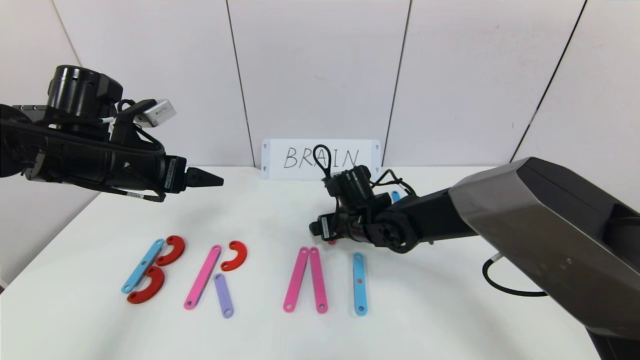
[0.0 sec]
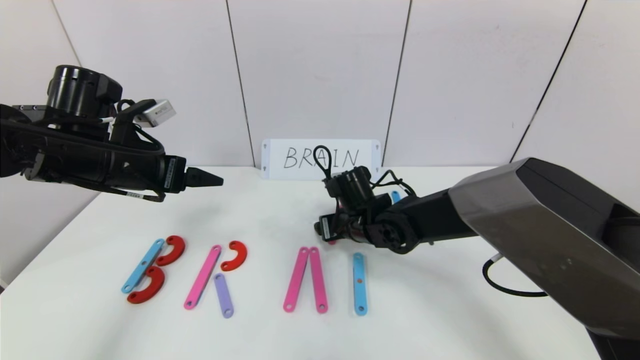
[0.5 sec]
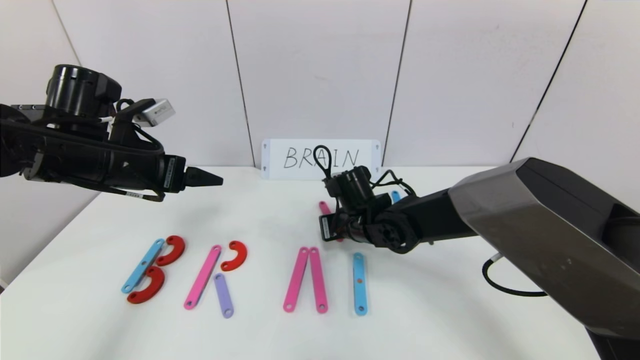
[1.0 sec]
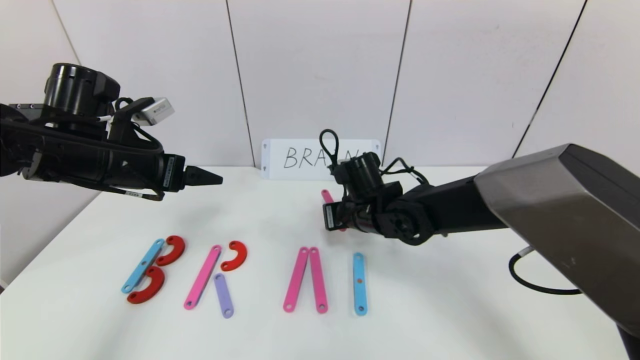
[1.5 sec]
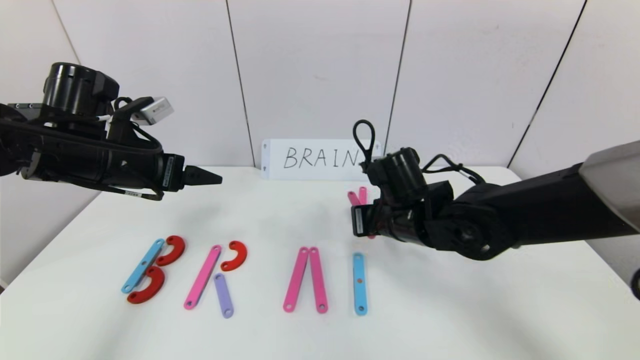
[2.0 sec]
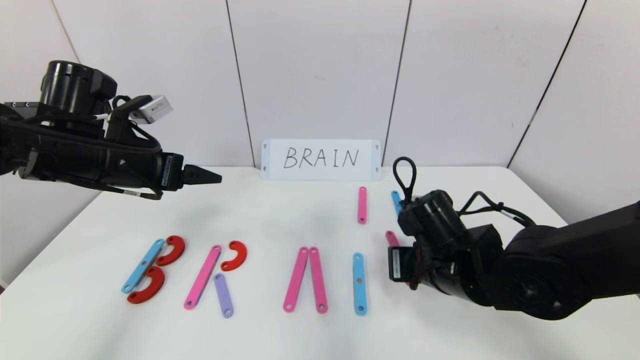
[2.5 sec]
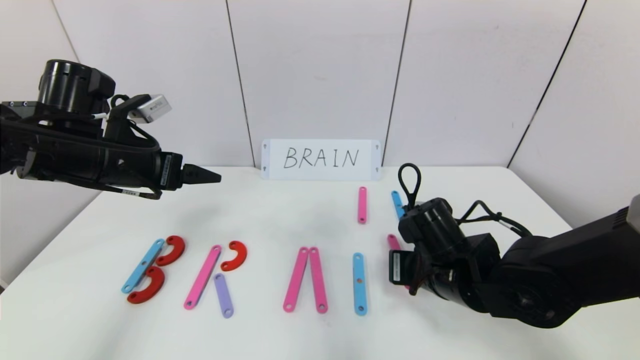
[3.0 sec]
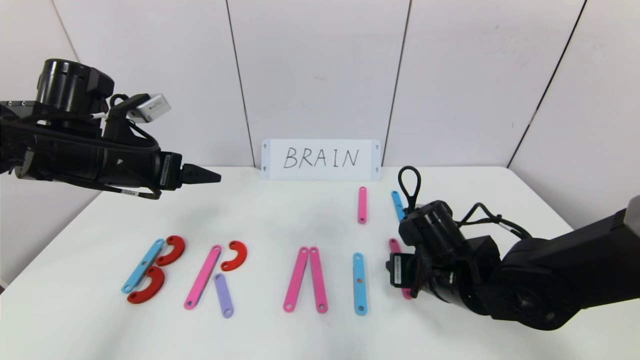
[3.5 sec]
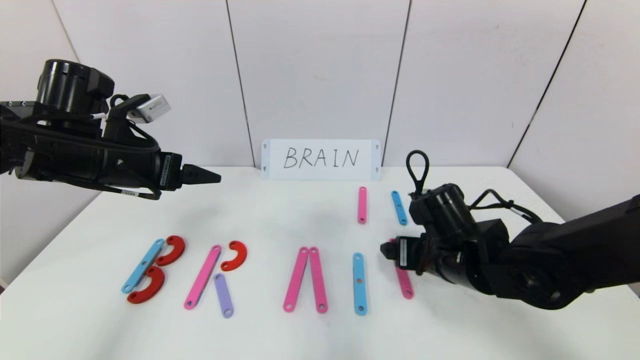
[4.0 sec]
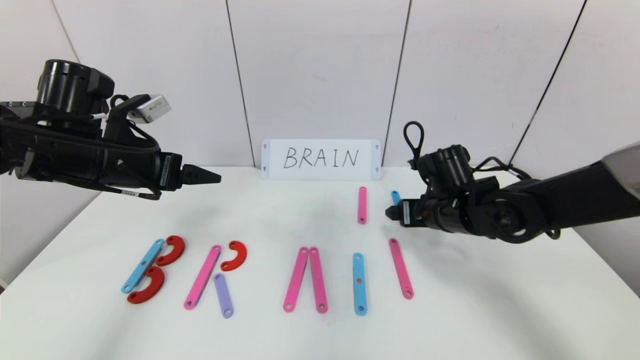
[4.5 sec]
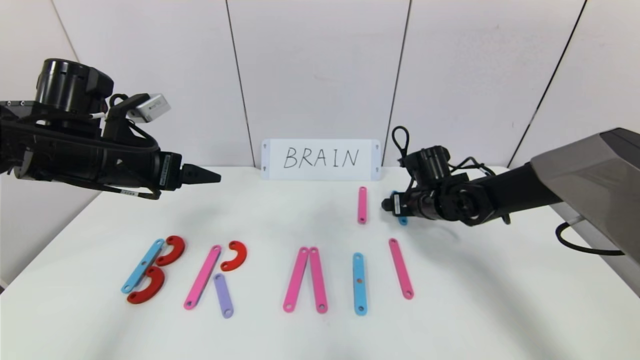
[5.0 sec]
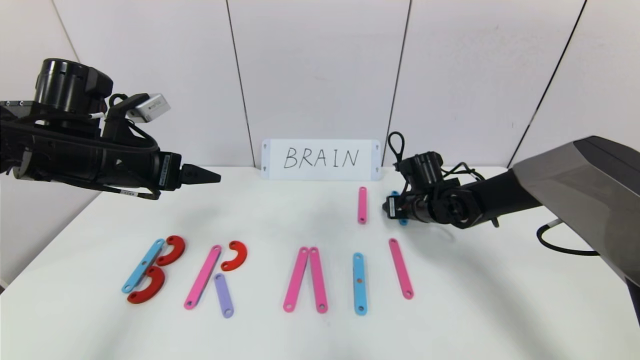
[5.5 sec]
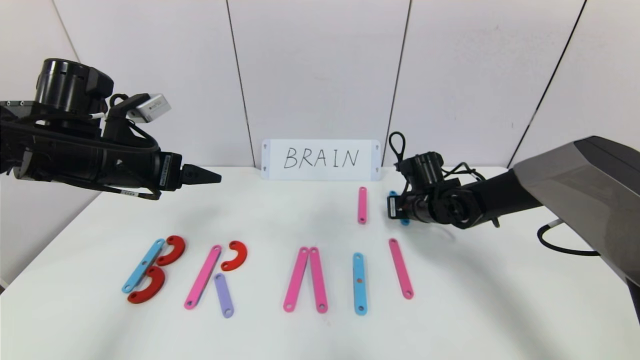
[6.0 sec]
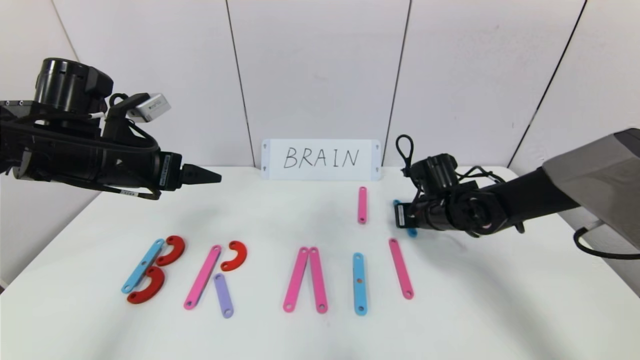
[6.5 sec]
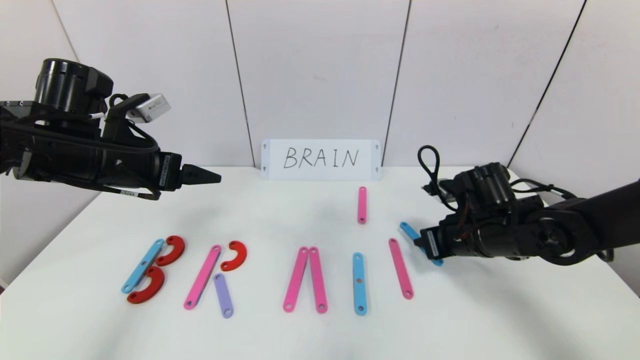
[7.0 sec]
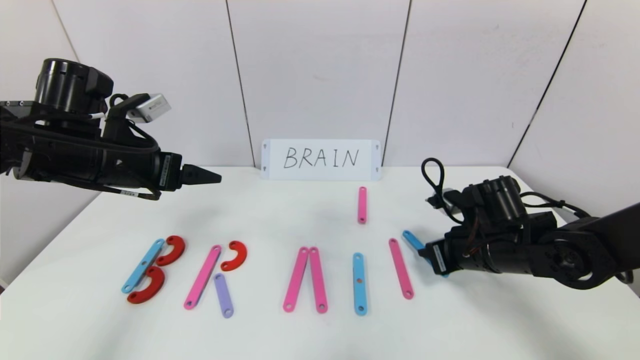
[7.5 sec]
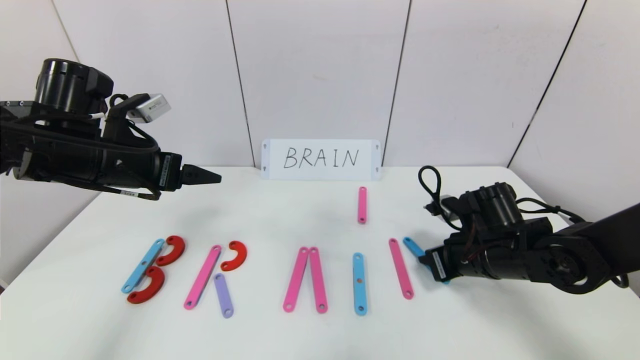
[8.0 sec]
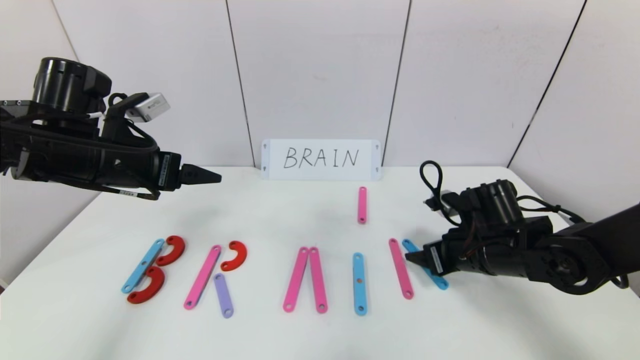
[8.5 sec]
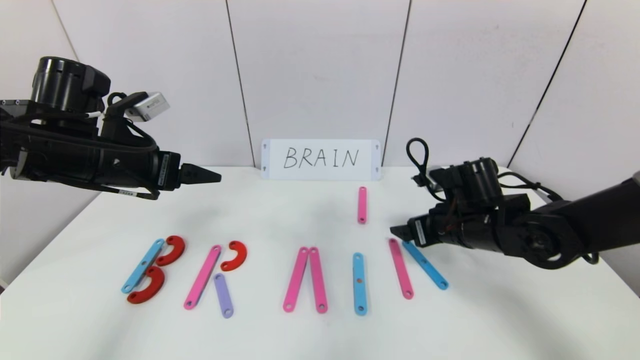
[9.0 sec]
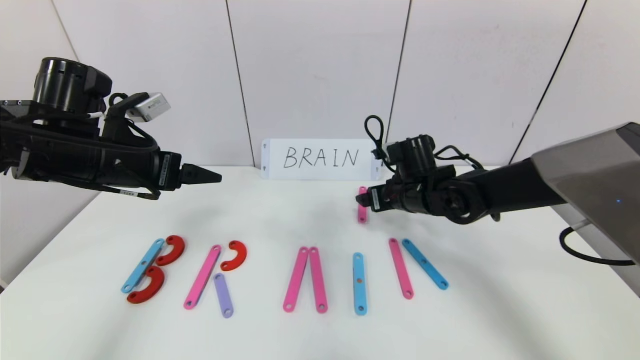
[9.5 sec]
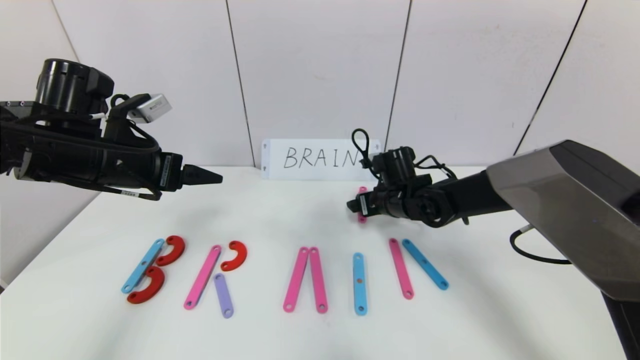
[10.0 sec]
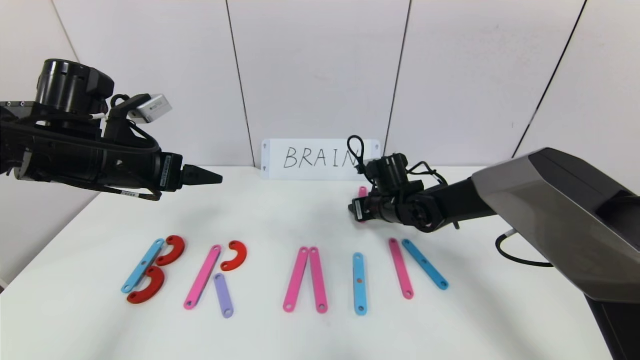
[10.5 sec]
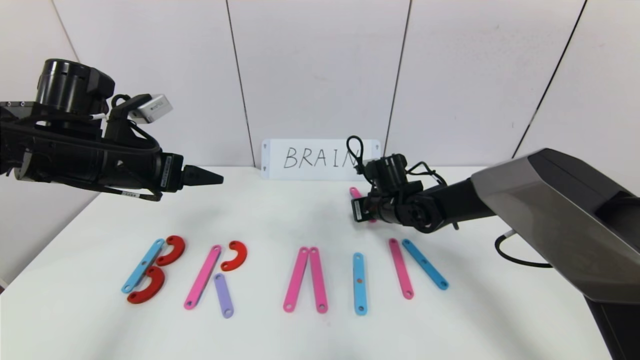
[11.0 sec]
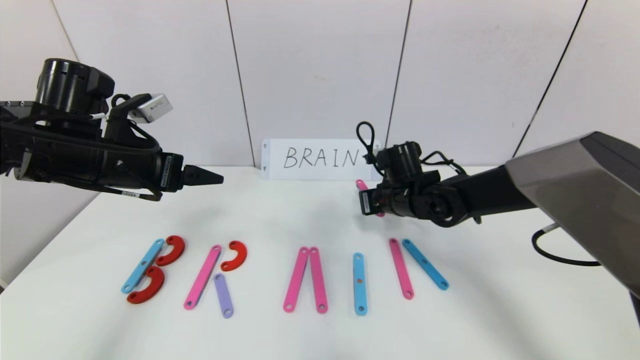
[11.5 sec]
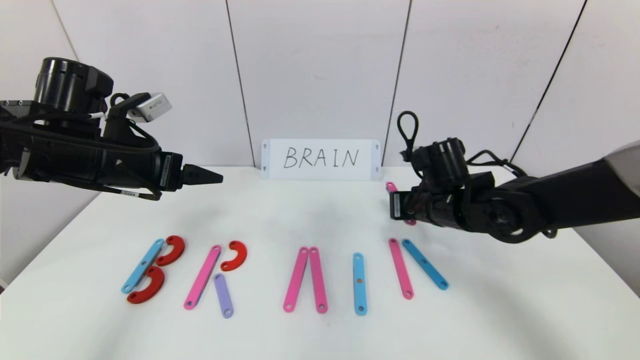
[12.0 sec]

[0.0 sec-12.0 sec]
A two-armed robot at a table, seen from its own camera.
Task of the whole recording: rearrange the word baai as brain.
0.0 sec to 2.0 sec: The right gripper shifts roughly 10 cm upward, backward and to the right, and closes.
2.0 sec to 4.0 sec: The right gripper moves to the right, roughly 5 cm, and opens.
4.0 sec to 6.0 sec: The right gripper travels forward by roughly 15 cm, and closes up.
6.0 sec to 8.0 sec: The right gripper is displaced backward by approximately 15 cm.
8.0 sec to 10.0 sec: The right gripper travels forward and to the left by about 15 cm, and opens.
10.0 sec to 12.0 sec: The right gripper travels backward by approximately 5 cm, and closes.

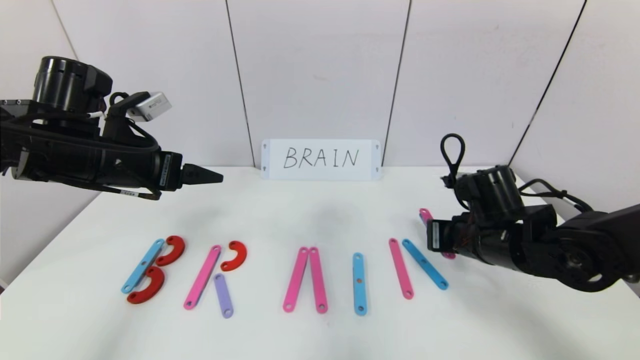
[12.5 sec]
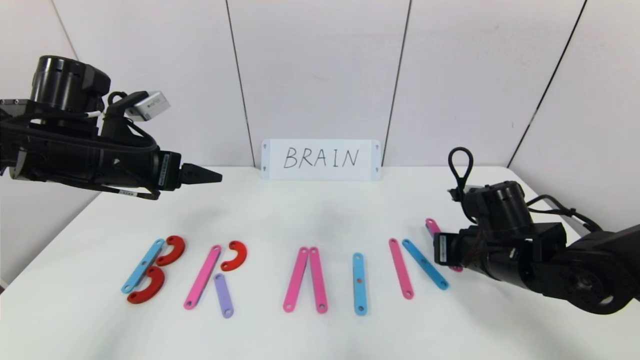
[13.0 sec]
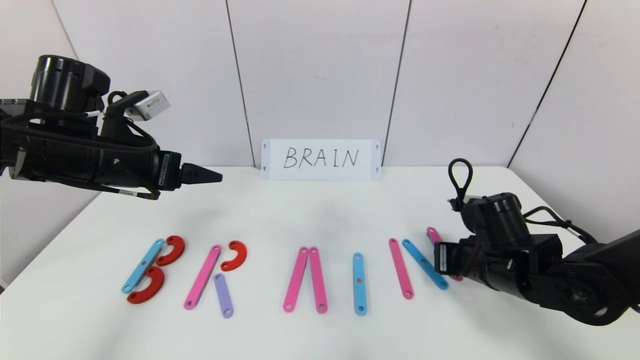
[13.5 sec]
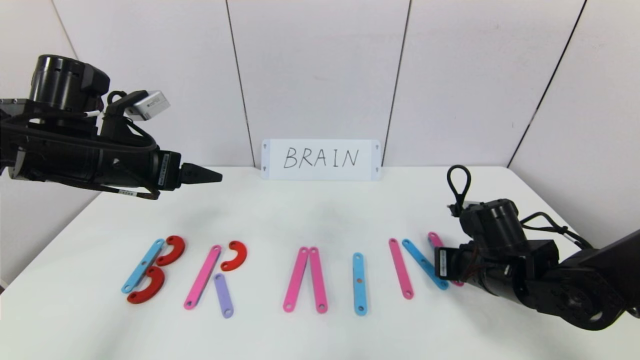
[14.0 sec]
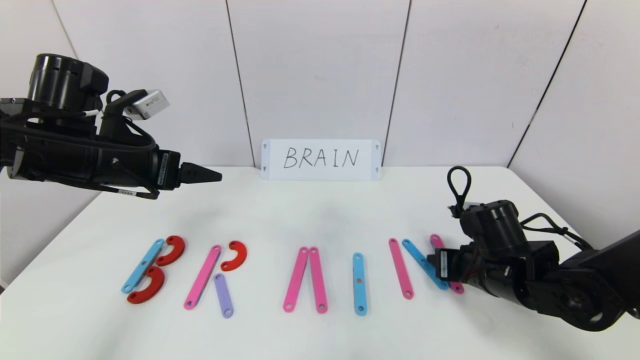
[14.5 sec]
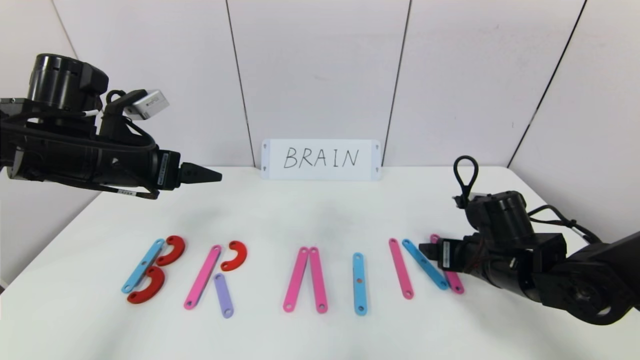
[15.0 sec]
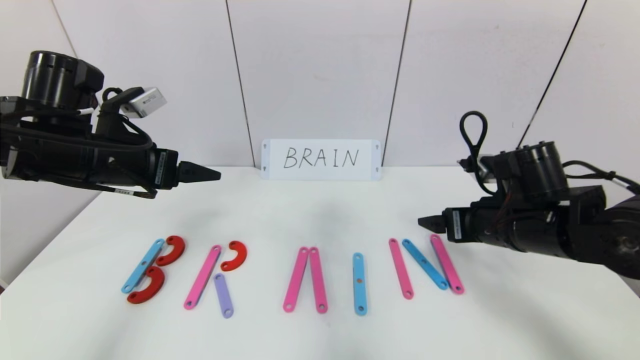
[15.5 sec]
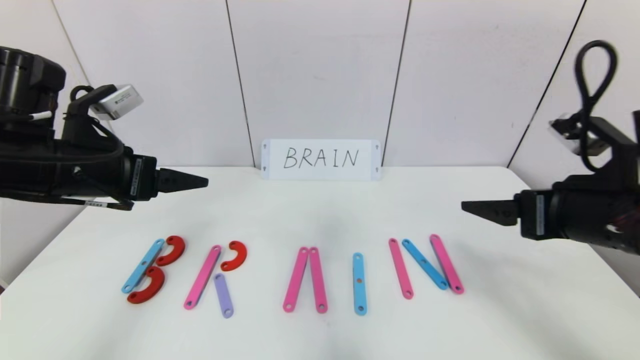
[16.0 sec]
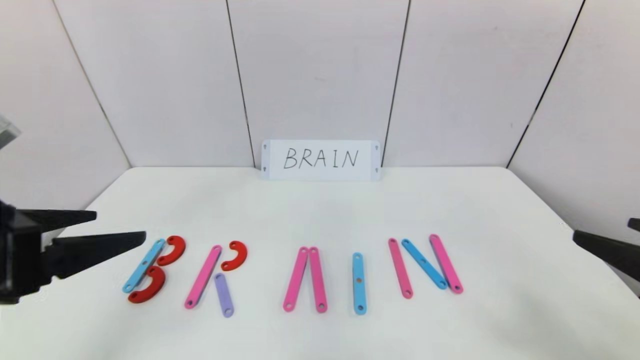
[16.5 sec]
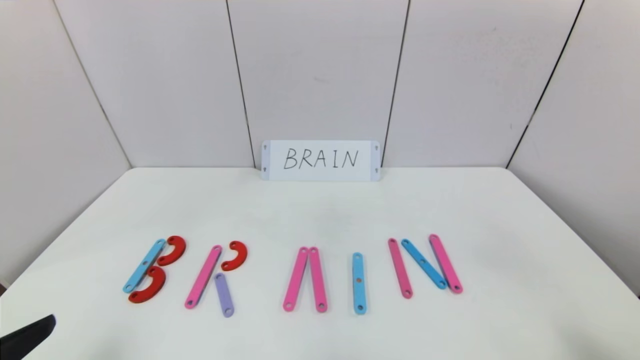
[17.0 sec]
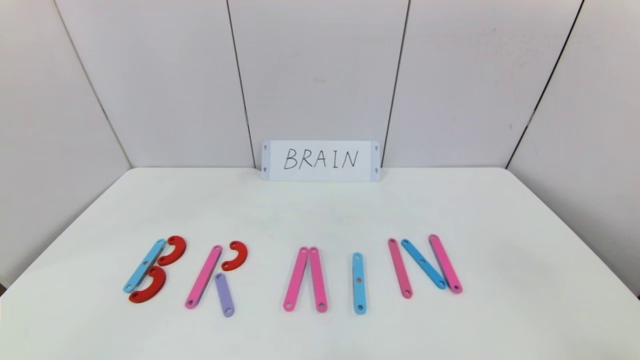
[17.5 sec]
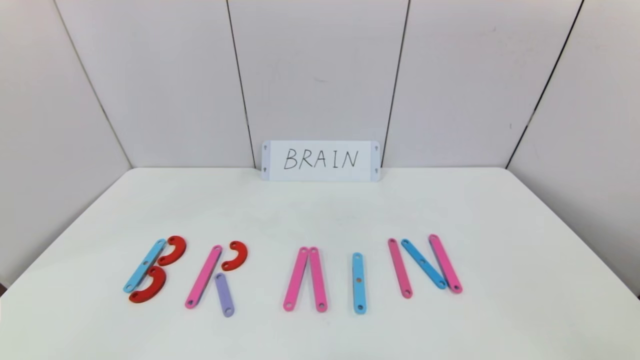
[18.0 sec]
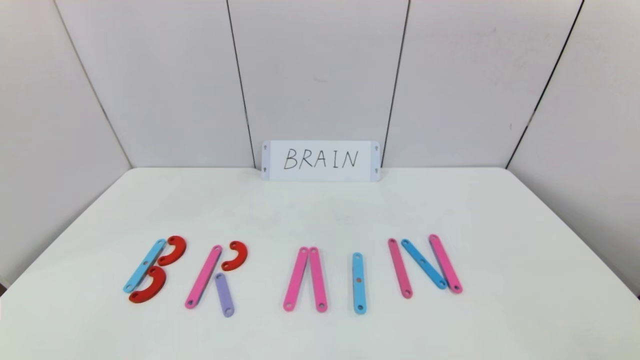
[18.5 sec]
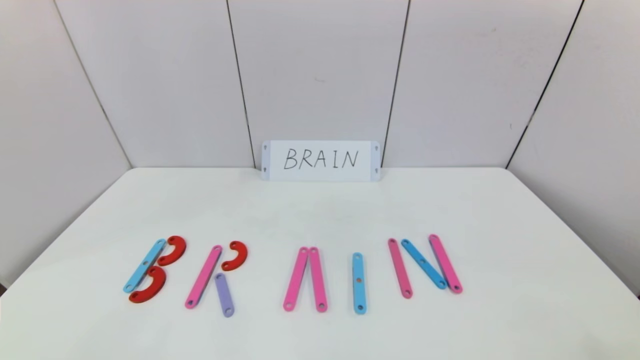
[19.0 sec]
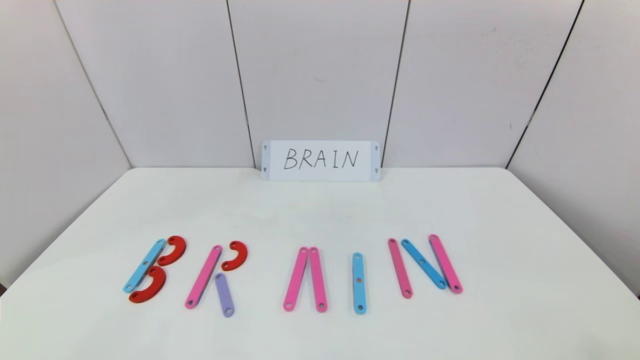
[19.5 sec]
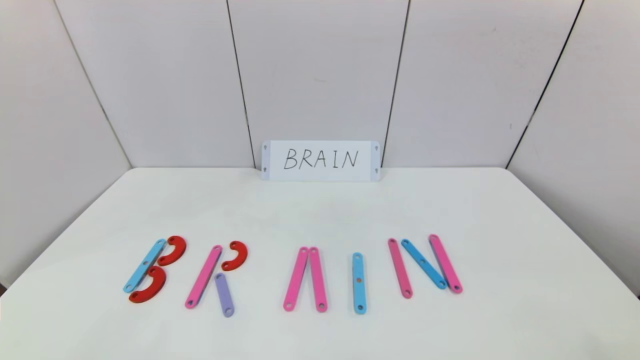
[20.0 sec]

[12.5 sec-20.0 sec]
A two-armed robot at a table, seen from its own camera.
Task of the whole recording: rearrange the word baai as brain.
12.5 sec to 14.5 sec: The right gripper opens its fingers.
14.5 sec to 16.5 sec: The right gripper is displaced backward, upward and to the right by some 25 cm, and opens its fingers. The left gripper moves backward, about 20 cm.
16.5 sec to 18.0 sec: The grippers both shift backward and downward by approximately 15 cm.
